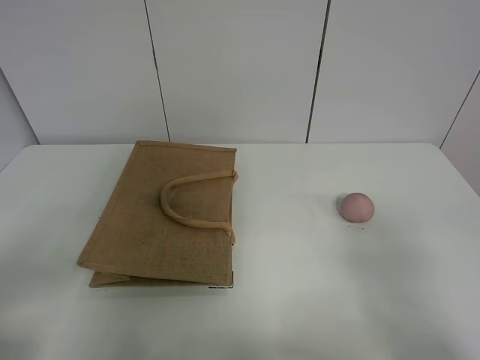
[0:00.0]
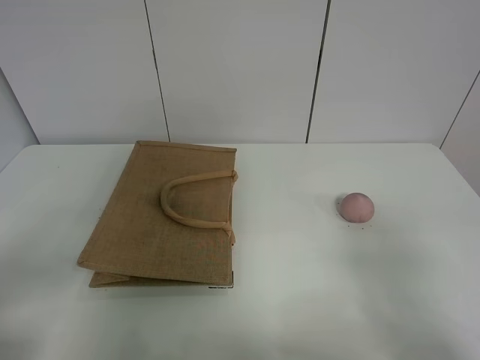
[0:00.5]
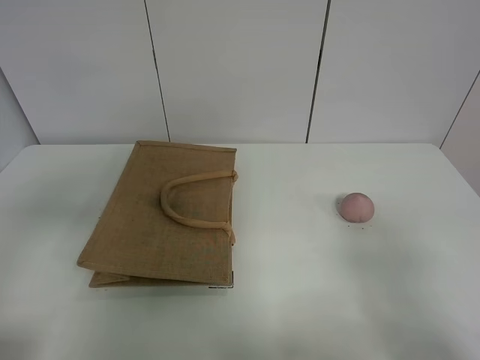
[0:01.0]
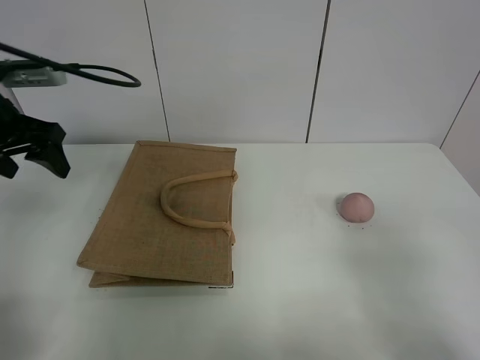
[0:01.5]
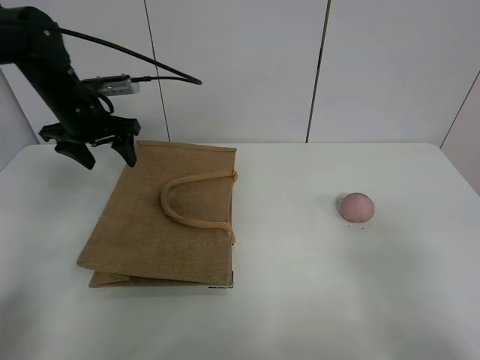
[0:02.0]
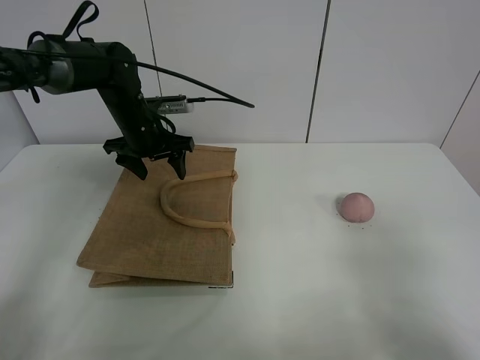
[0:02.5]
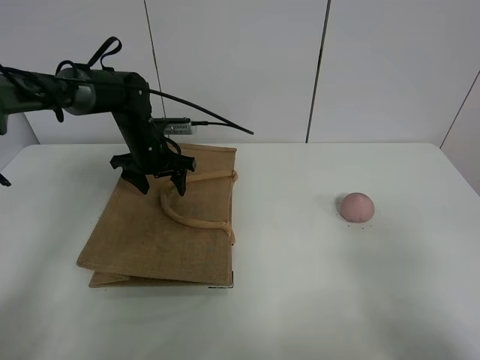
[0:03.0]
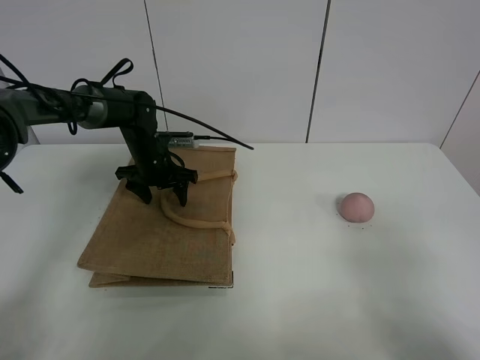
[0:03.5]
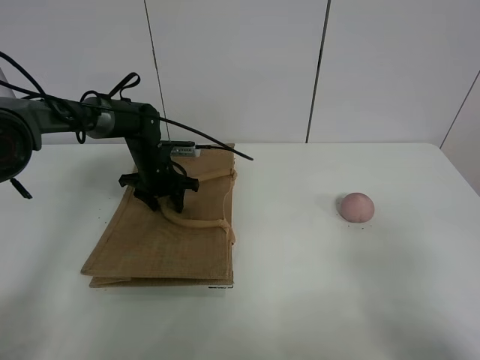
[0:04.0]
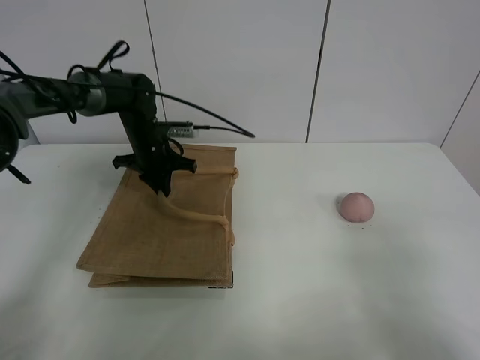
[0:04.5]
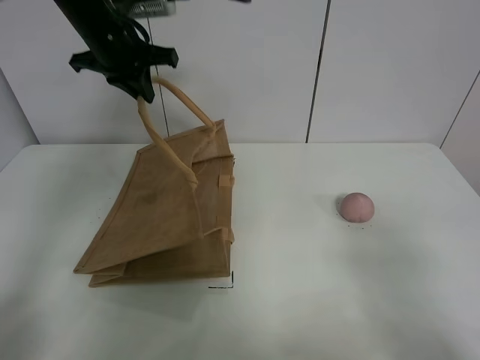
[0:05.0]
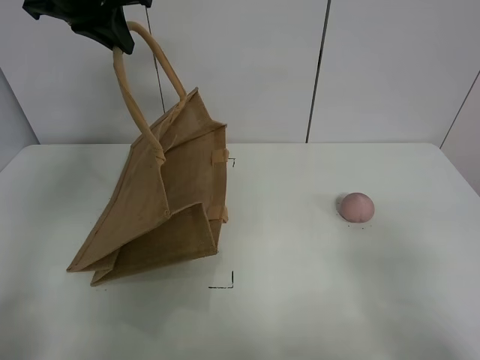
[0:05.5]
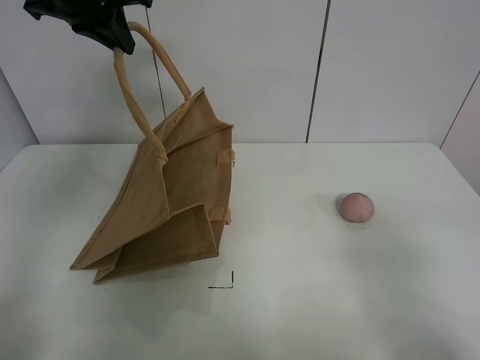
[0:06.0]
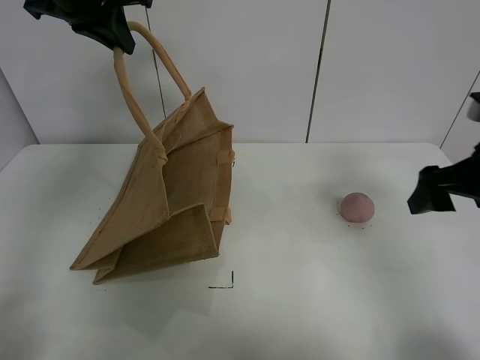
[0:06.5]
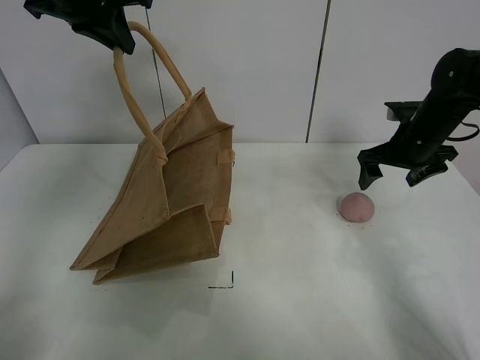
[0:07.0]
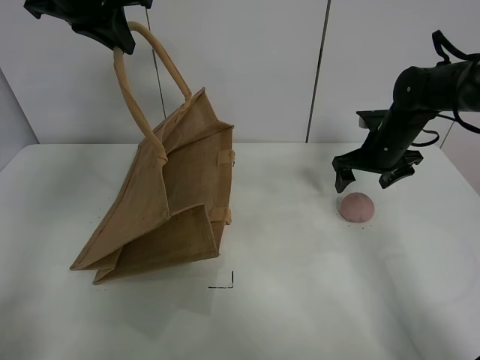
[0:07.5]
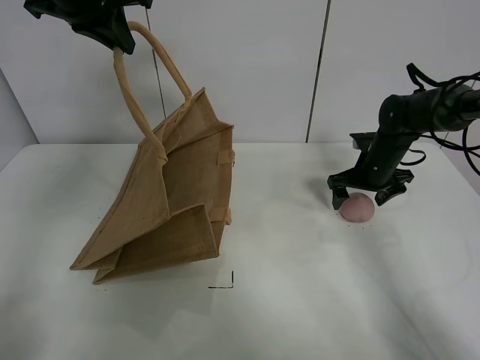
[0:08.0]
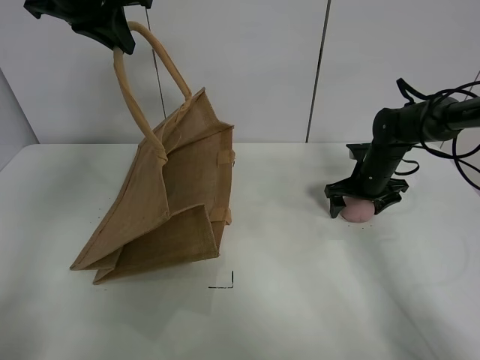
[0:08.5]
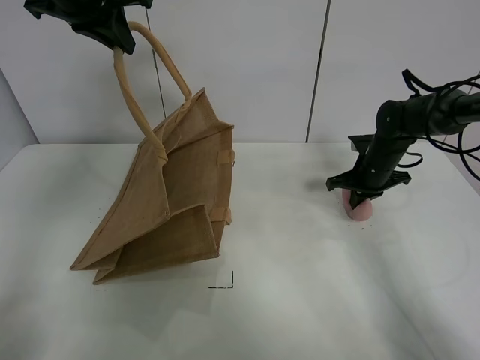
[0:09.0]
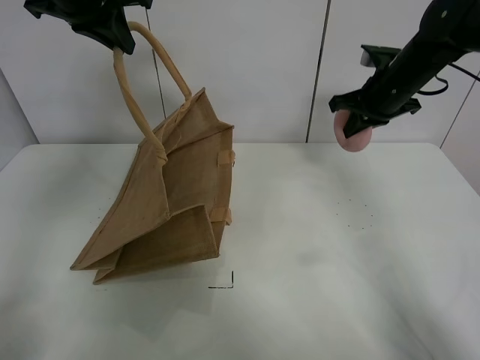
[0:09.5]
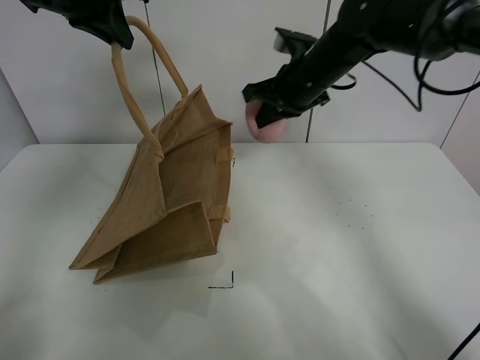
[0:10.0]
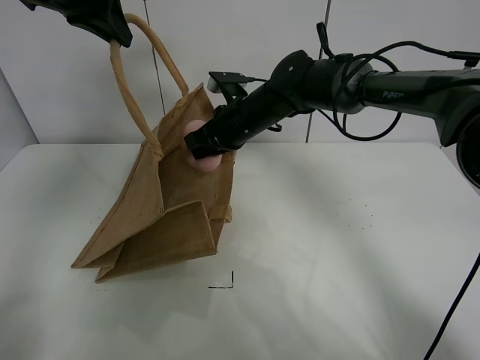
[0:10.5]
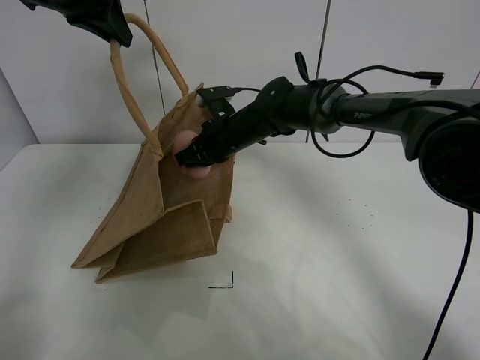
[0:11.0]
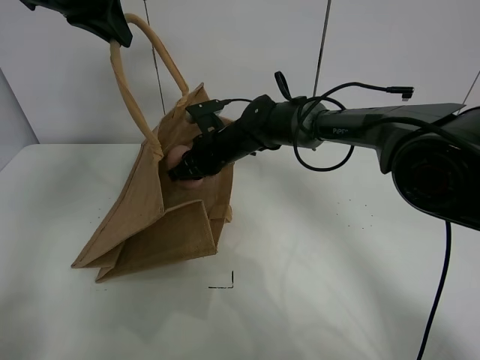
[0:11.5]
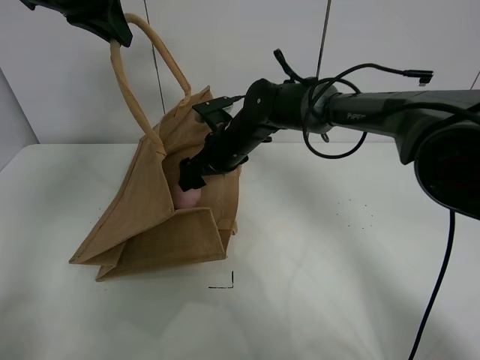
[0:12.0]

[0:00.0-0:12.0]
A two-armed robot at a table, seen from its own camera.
Task of the whole recording: open the brown linen bag and put the peach in the bag.
Step, 0:00.0 to 0:05.0: Lift the handbag with left gripper.
Step, 0:05.5 to 0:08.5: Grasp the peach with right gripper.
0:00.0 to 0:02.0: The left gripper moves forward, some 40 cm.
0:02.0 to 0:04.0: The left gripper shifts approximately 15 cm downward and to the right.
0:04.0 to 0:06.0: The left gripper moves upward, about 35 cm, and closes.
0:06.0 to 0:08.0: The right gripper travels forward by approximately 40 cm.
0:08.0 to 0:10.0: The right gripper is displaced to the left and upward by approximately 20 cm, and closes.
0:10.0 to 0:12.0: The right gripper moves downward and to the left, about 15 cm, and opens.

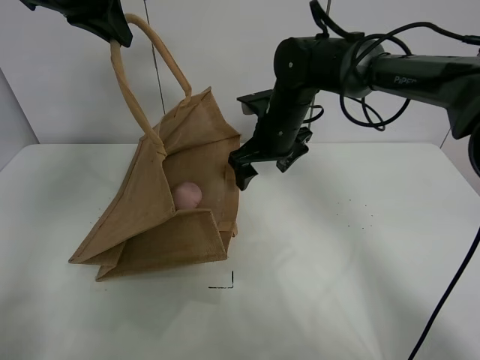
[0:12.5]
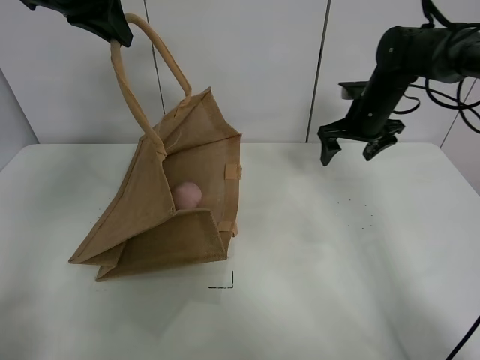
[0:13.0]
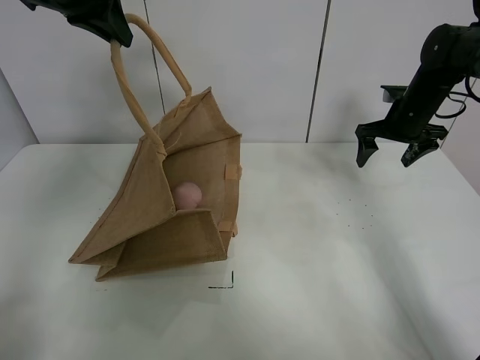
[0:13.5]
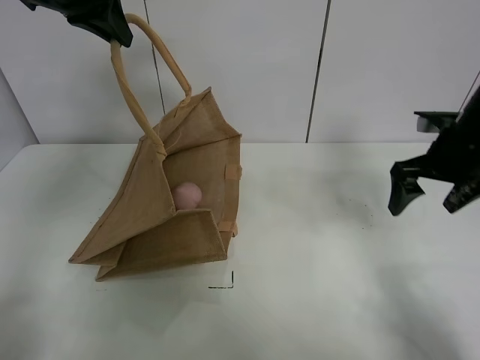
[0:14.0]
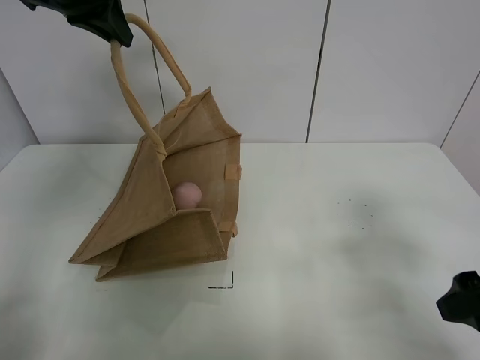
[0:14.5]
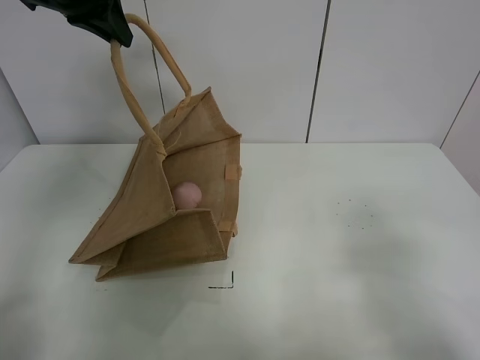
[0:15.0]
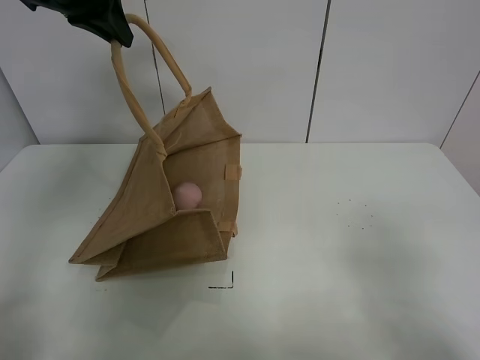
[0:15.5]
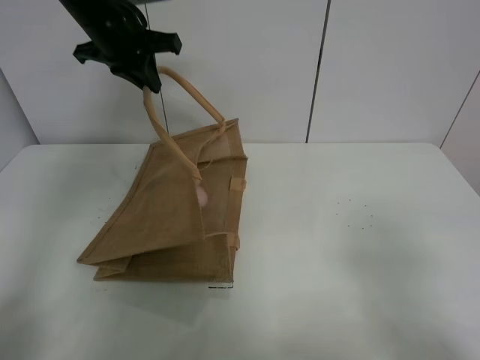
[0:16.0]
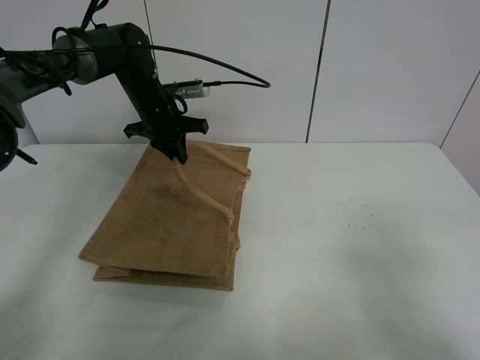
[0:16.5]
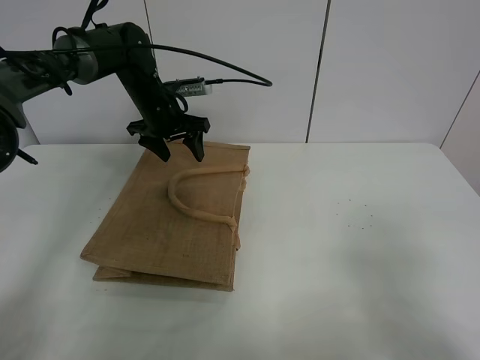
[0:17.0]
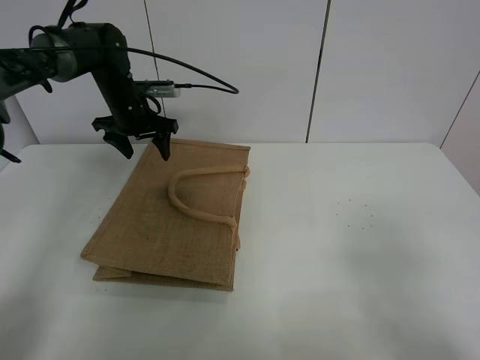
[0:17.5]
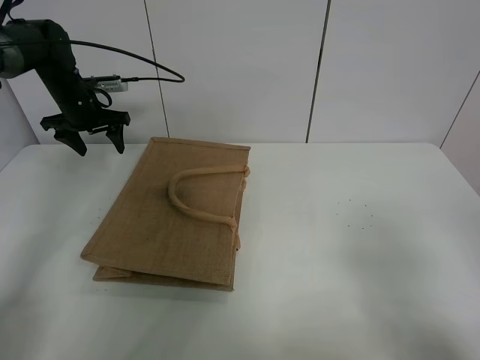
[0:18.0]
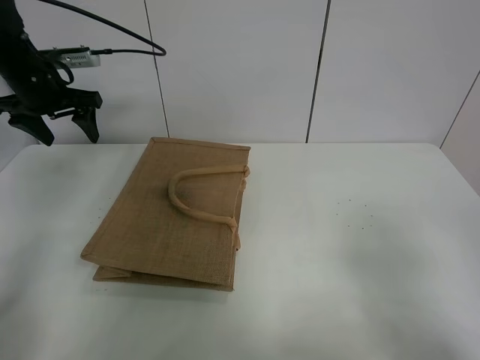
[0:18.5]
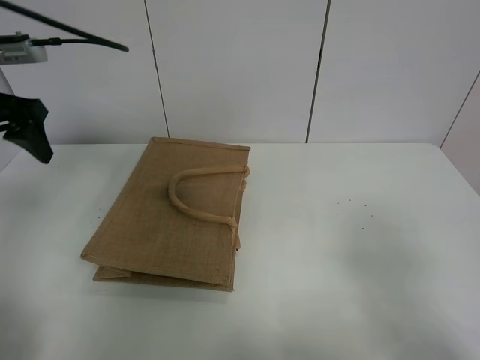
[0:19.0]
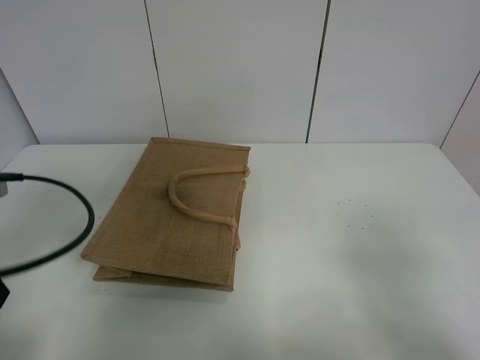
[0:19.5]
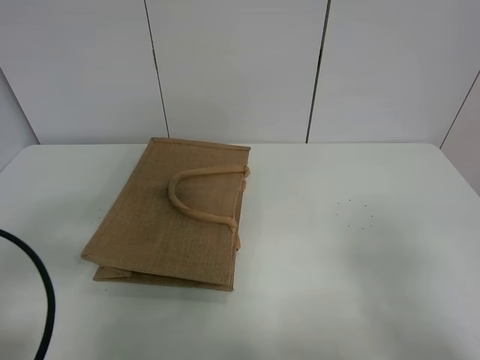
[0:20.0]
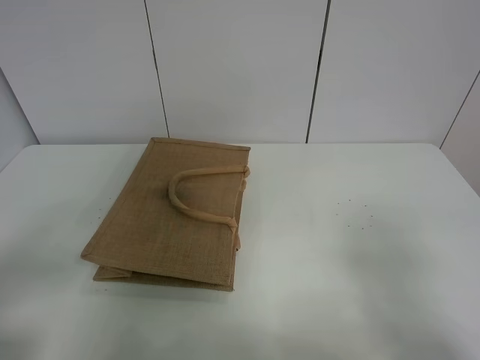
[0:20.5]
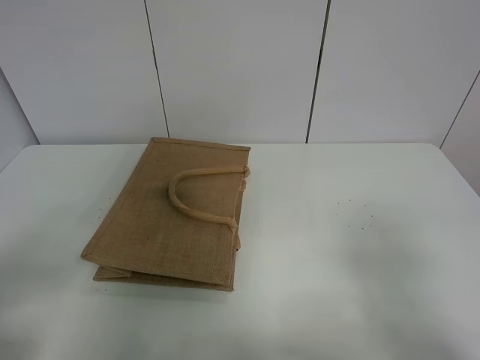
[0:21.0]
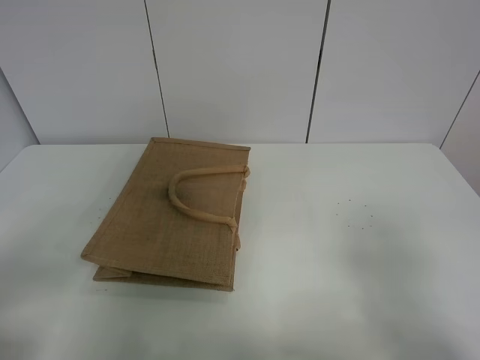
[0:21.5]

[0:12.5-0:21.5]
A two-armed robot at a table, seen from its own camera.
Task of the whole recording: open the brown linen bag and put the peach in the bag.
Step, 0:12.5 to 0:17.5: Put down the handbag with left grippe.
0:12.5 to 0:14.5: The right gripper is displaced backward and to the right by some 35 cm.
0:14.5 to 0:17.0: The right gripper heads backward, covering approximately 10 cm; the left gripper moves downward and forward, about 25 cm, and opens its fingers.
0:17.0 to 0:19.5: The left gripper moves backward and to the left, about 35 cm.
0:19.5 to 0:21.5: The left gripper shifts roughly 15 cm backward.

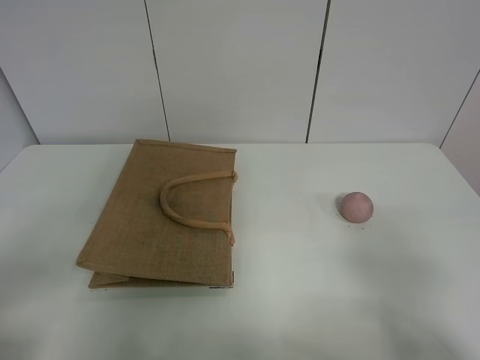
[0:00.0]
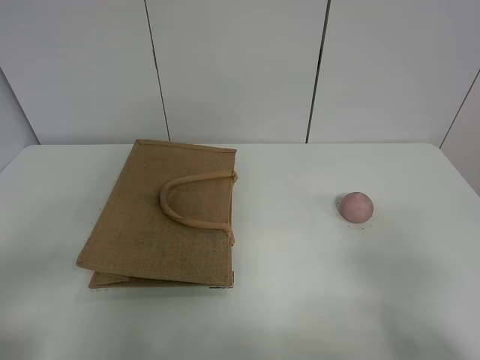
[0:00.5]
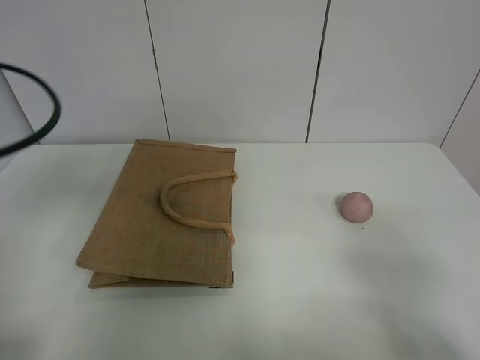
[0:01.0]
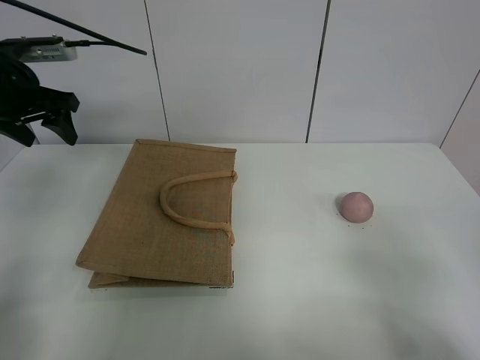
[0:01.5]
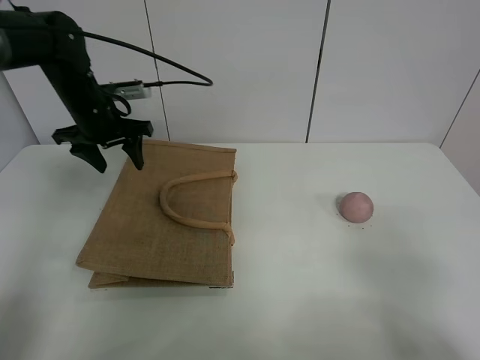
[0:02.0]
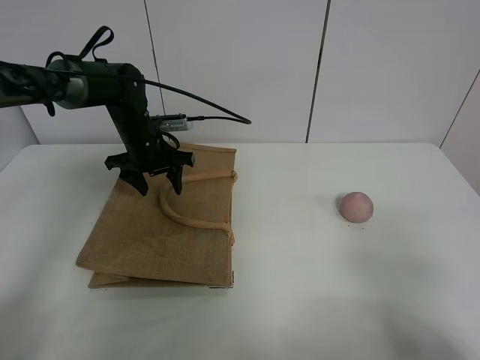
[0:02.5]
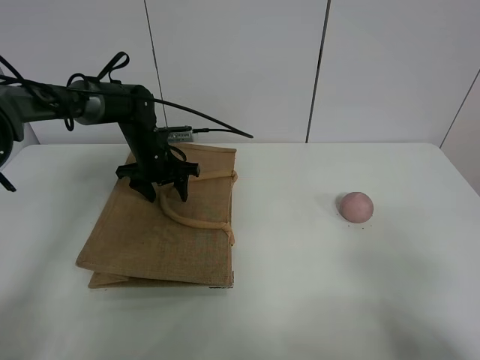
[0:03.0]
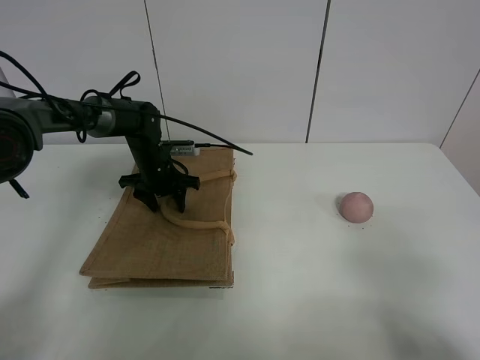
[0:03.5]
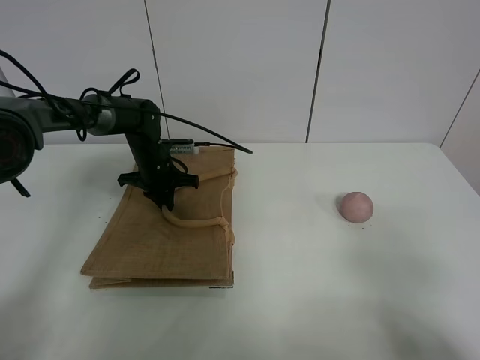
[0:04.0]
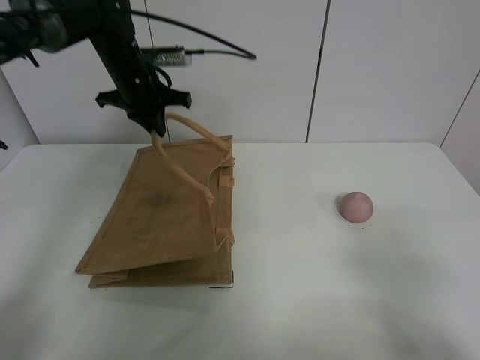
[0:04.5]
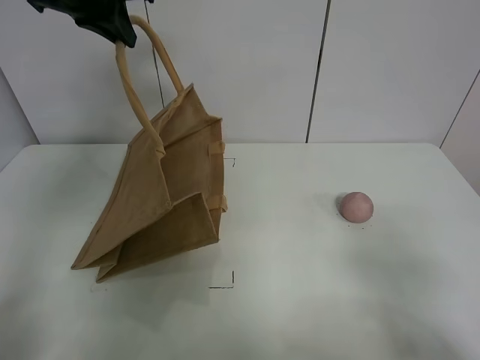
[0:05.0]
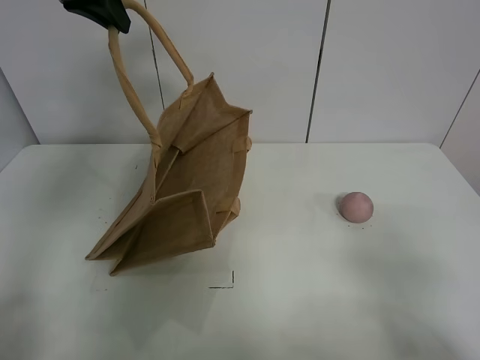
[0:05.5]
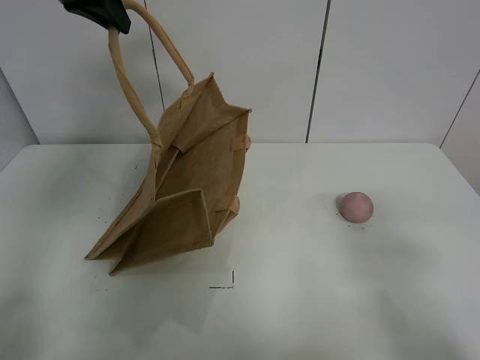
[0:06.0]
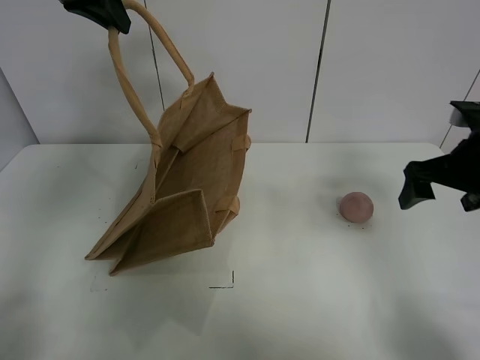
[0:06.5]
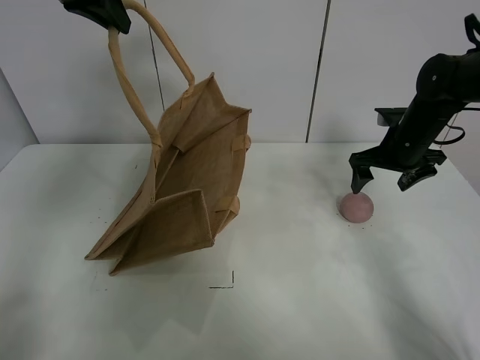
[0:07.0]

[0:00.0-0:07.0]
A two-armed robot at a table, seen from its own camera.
Task of the whole recording: open the brown linen bag and put the peach in the bag.
Step, 0:00.0 to 0:05.0: Lift the handbag with left gripper.
0:00.0 to 0:02.0: The left gripper moves forward, about 40 cm.
0:02.0 to 0:03.5: The left gripper moves downward, approximately 15 cm.
0:03.5 to 0:05.0: The left gripper shifts roughly 35 cm upward, and closes up.
0:05.0 to 0:07.0: The right gripper shifts approximately 40 cm forward.
